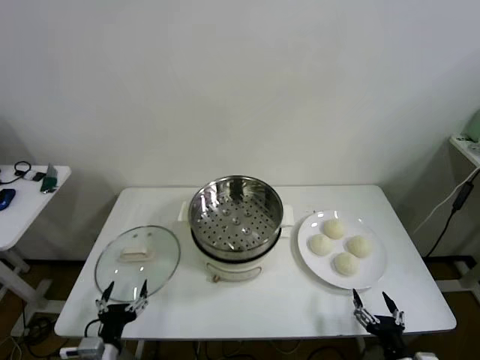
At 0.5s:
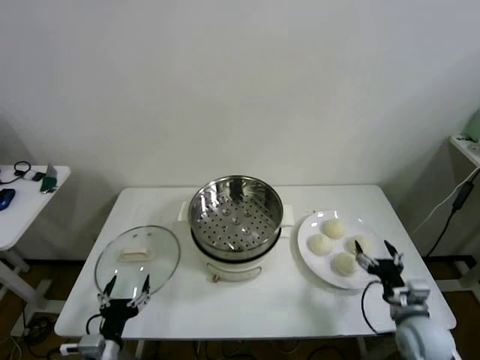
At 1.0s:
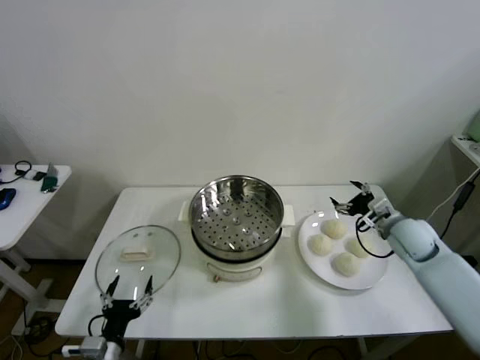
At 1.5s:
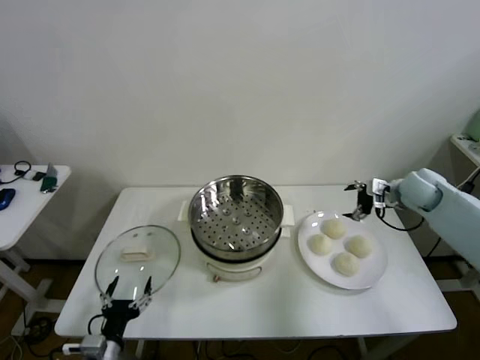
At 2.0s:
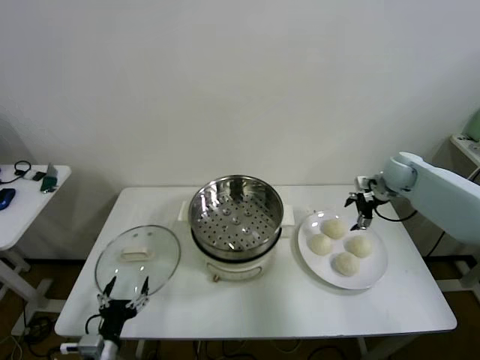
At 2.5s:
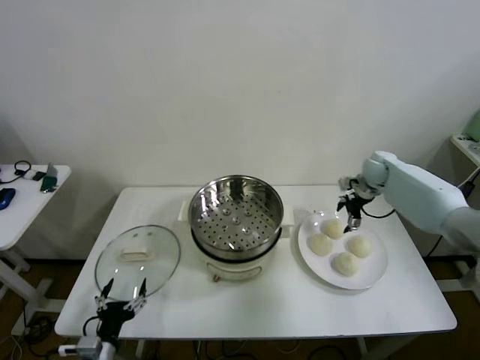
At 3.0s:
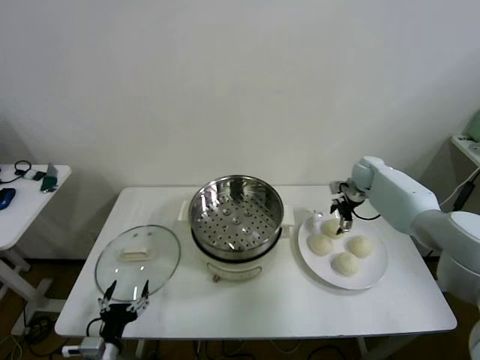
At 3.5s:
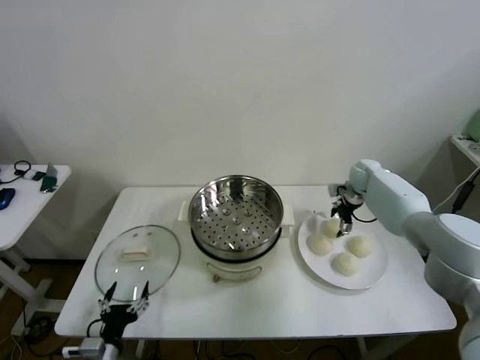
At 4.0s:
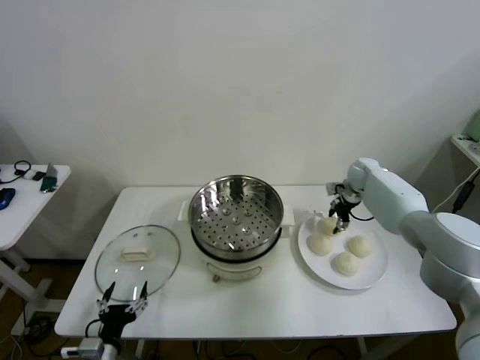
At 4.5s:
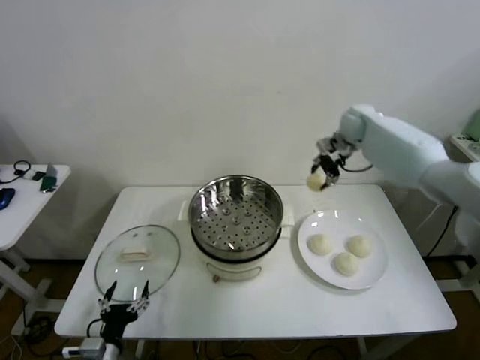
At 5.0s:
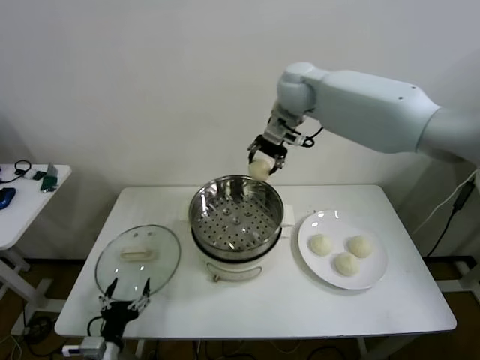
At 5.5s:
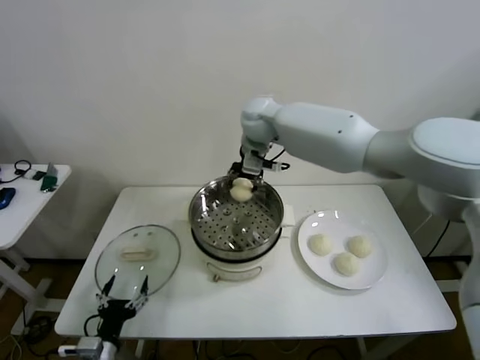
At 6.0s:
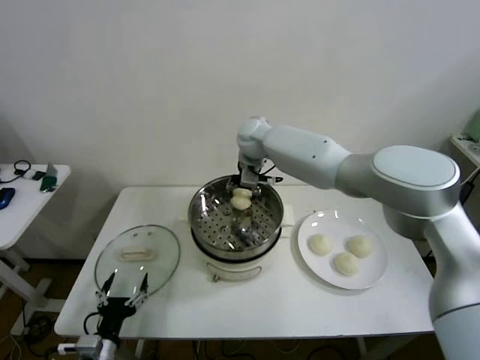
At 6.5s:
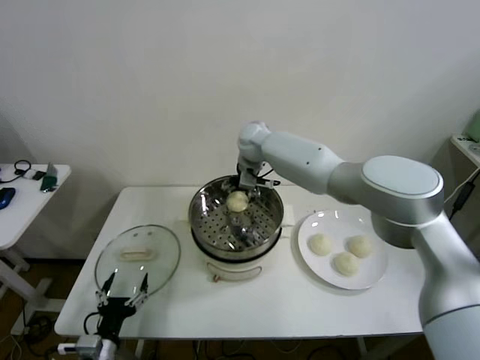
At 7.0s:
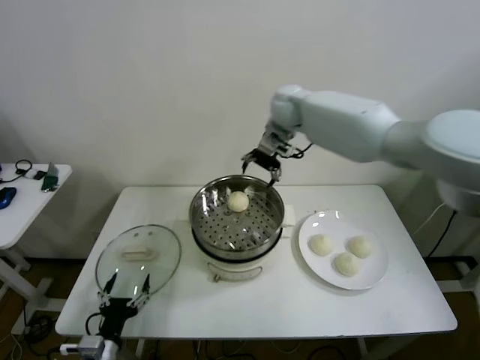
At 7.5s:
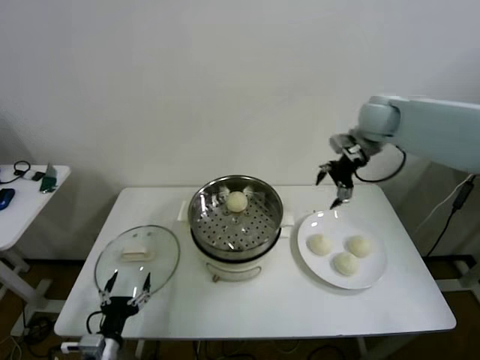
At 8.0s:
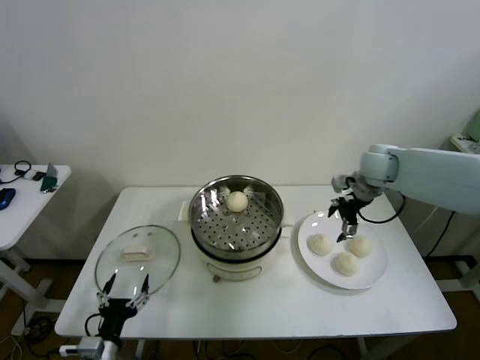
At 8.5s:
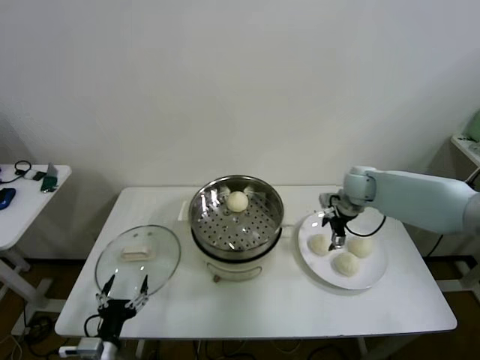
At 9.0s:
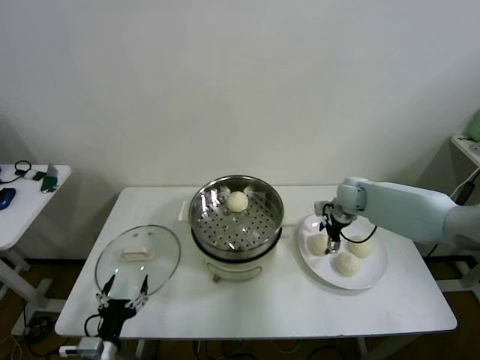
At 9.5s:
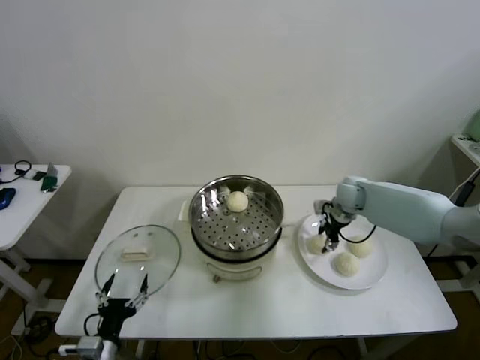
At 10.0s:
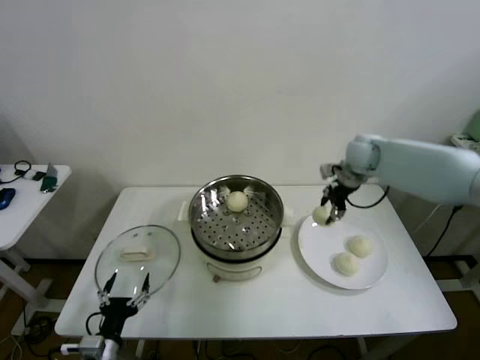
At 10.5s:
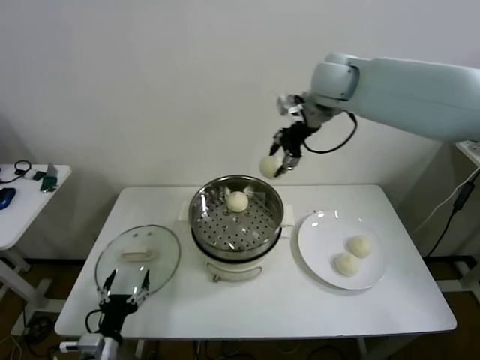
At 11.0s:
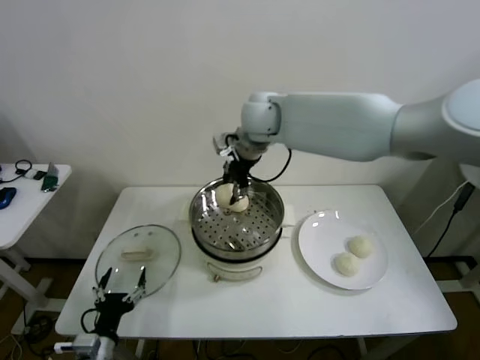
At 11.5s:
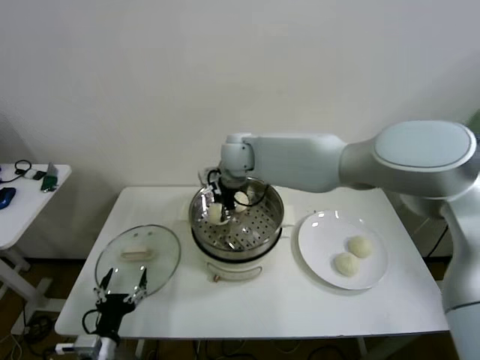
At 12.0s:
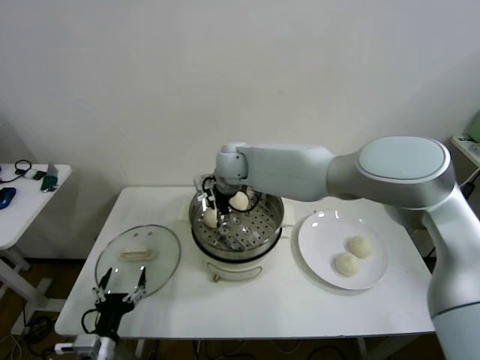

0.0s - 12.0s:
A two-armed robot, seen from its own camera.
Step, 0.0s - 3.5s: Grasp the baozi in the plate with right gripper.
Step, 4.0s - 6.5s: Place the baozi on the steamer with right gripper.
Step, 7.0s - 9.5s: Grasp the baozi in the plate with right gripper.
2.0s - 4.0s: The right gripper travels forward and downward by approximately 10 cm, and closes its fingers.
4.0s - 6.0s: The right gripper is displaced to the left by some 30 cm.
6.0s - 8.0s: The right gripper is displaced to the right by approximately 30 cm, and opens its fingers.
8.0s - 10.0s: The right gripper is displaced upward by roughly 5 cm, and closes.
10.0s - 12.0s: The right gripper is displaced to the left by approximately 30 cm, and opens its fingers.

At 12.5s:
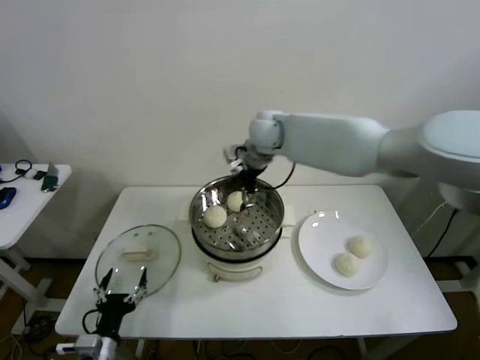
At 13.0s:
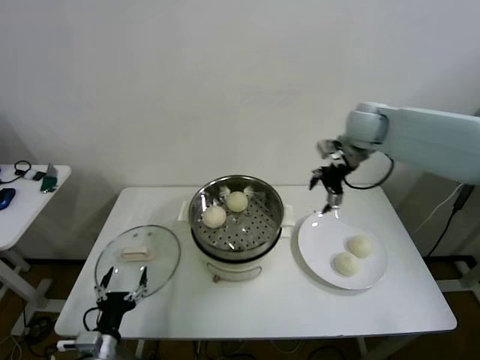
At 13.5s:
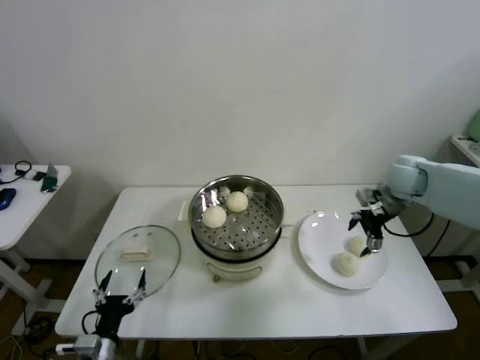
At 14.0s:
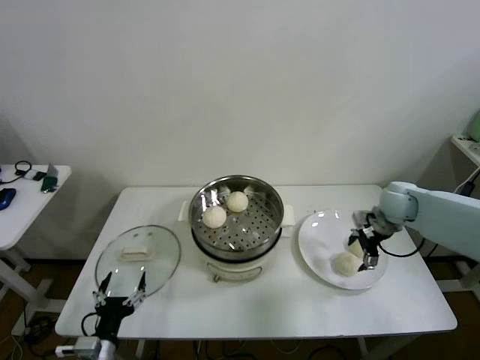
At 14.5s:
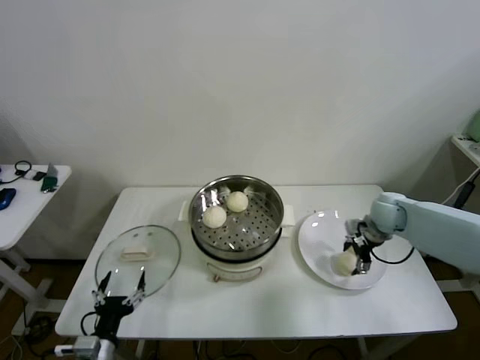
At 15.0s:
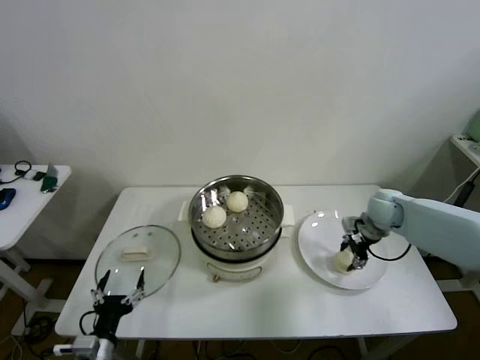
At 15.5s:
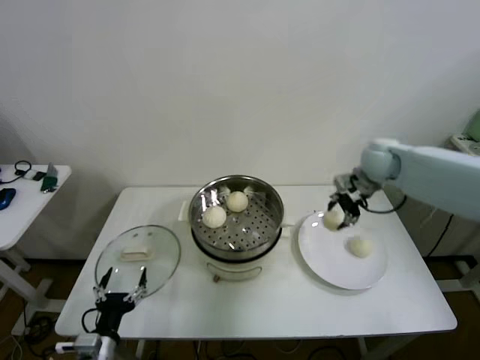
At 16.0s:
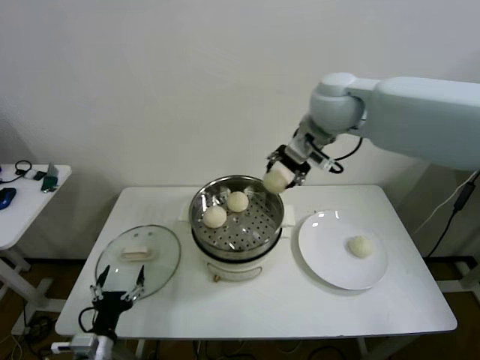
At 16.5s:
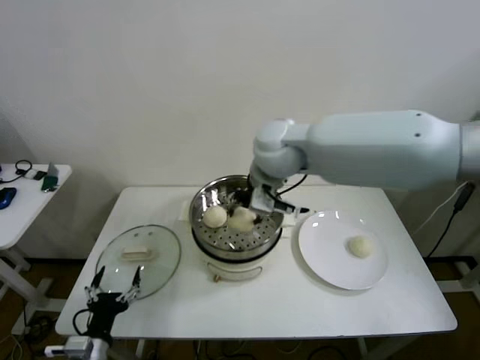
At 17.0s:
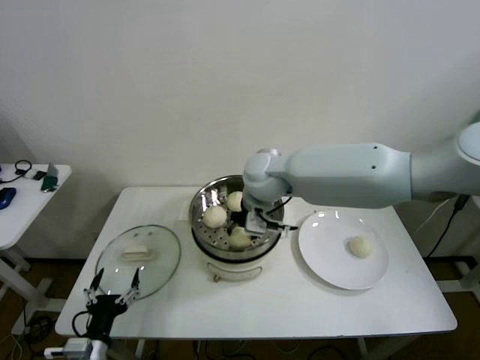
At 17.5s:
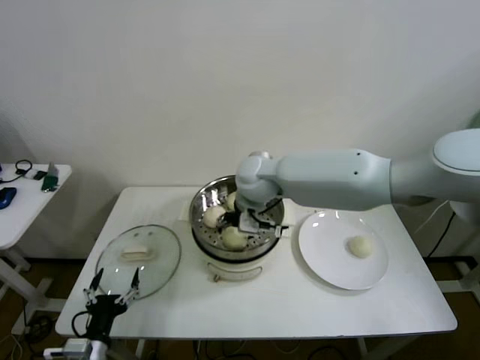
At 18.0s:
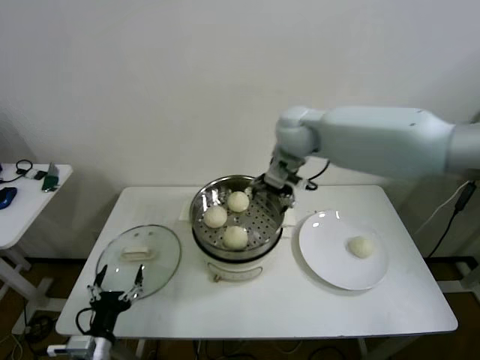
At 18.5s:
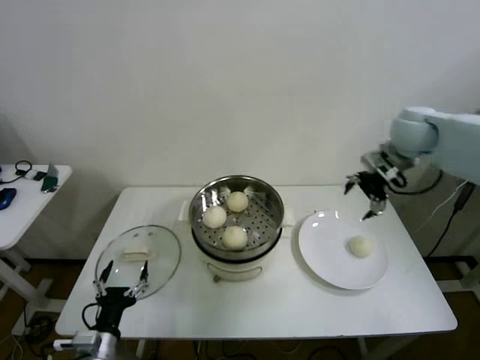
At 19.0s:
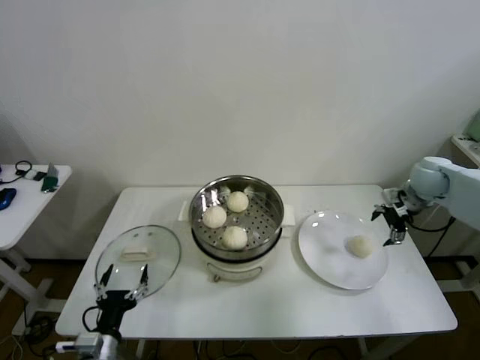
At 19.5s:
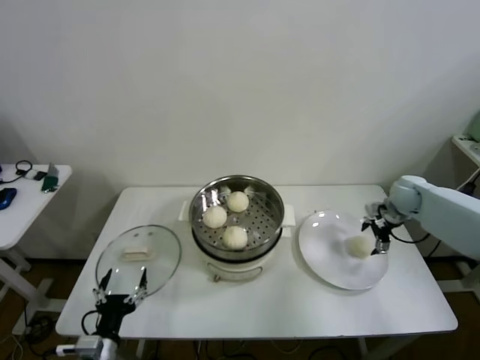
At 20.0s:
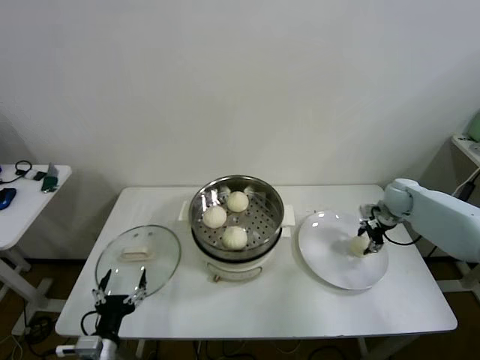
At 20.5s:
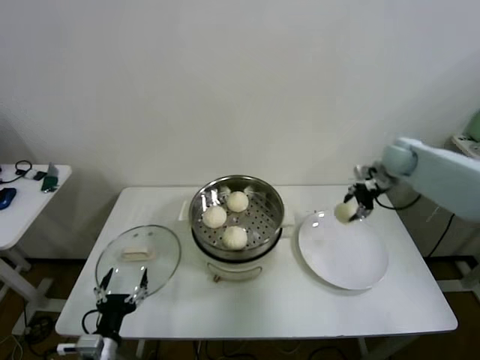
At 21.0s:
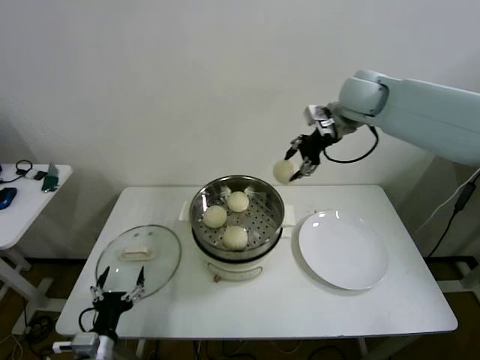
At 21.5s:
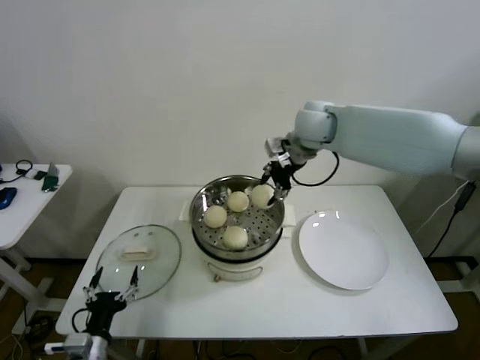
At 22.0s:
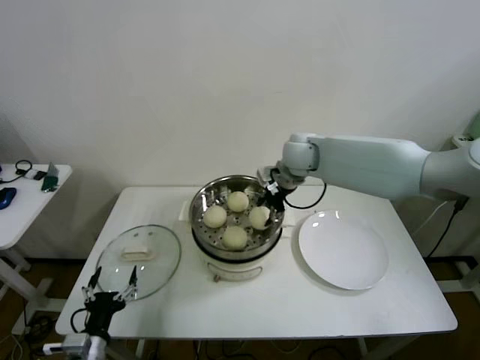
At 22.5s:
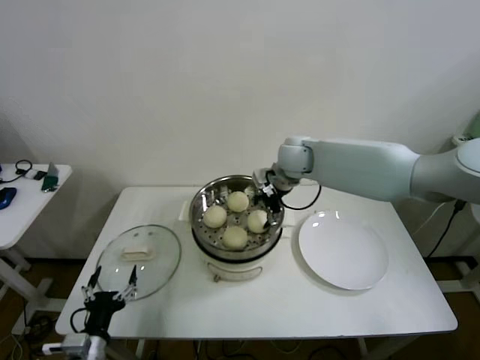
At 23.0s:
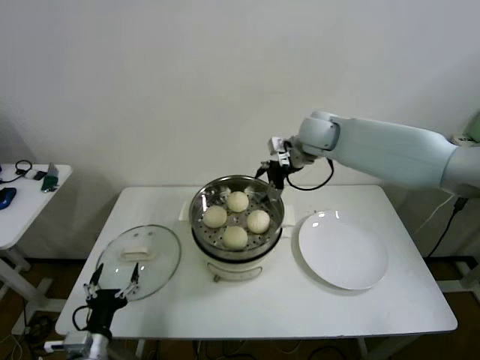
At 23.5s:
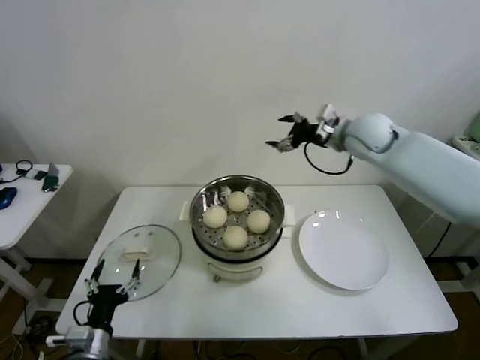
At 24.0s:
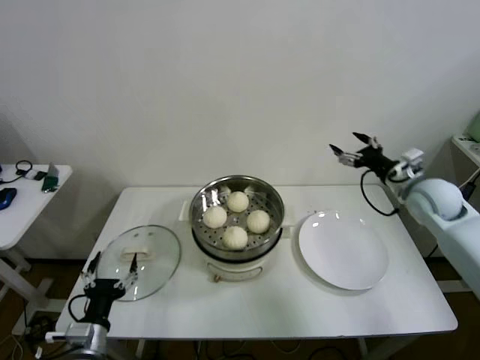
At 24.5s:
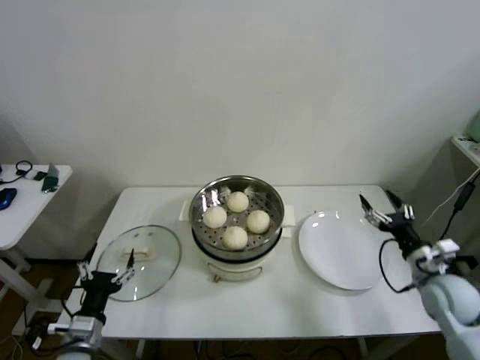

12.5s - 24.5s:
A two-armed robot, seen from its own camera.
Step, 12.5s - 14.5s: Grasp the baozi in the plate with right gripper.
Step, 15.0s - 17.5s: Place the baozi on the steamer with right gripper.
Step, 18.0s - 20.0s: Grasp the baozi in the plate with right gripper.
Step, 20.5s - 22.5s: Place the baozi on the steamer with right gripper.
12.5s - 14.5s: The right gripper is displaced to the right and downward by approximately 35 cm.
14.5s - 16.5s: The right gripper moves to the left and upward, roughly 40 cm, and closes.
16.5s - 18.5s: The right gripper moves to the right, approximately 30 cm, and opens.
18.5s - 20.5s: The right gripper travels downward and forward by approximately 10 cm, and closes.
20.5s - 22.5s: The right gripper shifts roughly 25 cm to the left, and opens its fingers.
22.5s - 24.5s: The right gripper shifts some 40 cm to the right, backward and downward.

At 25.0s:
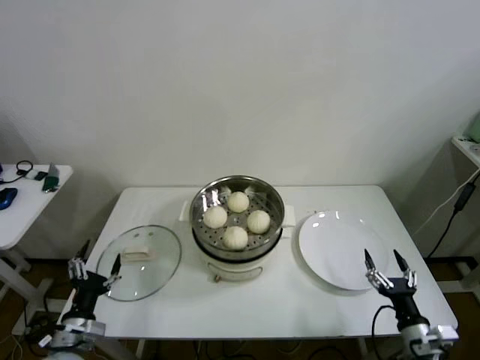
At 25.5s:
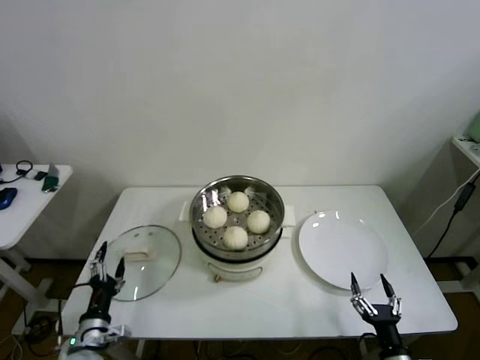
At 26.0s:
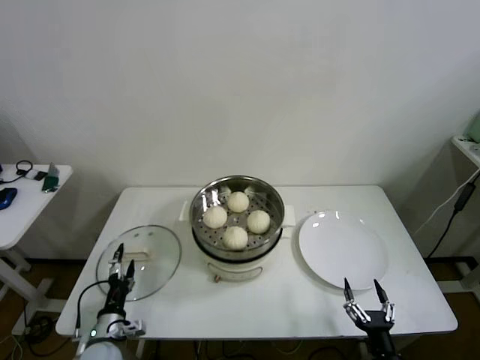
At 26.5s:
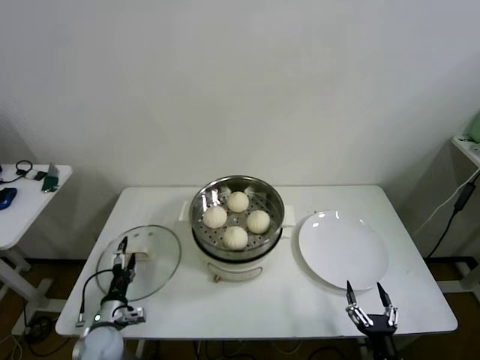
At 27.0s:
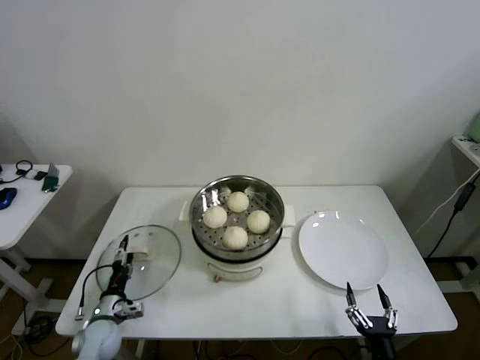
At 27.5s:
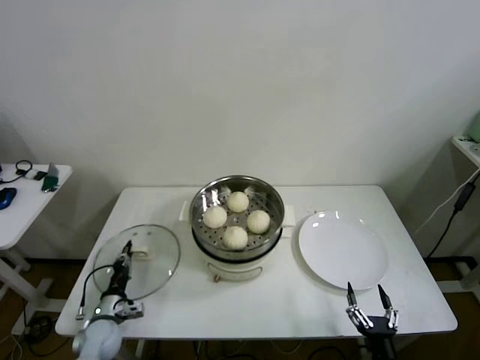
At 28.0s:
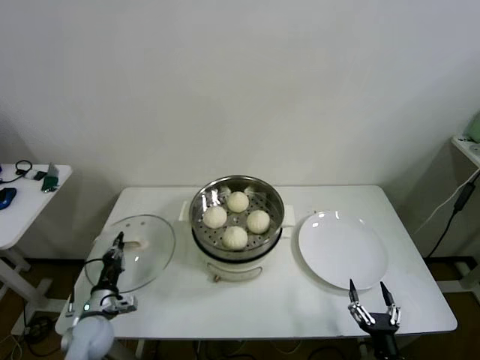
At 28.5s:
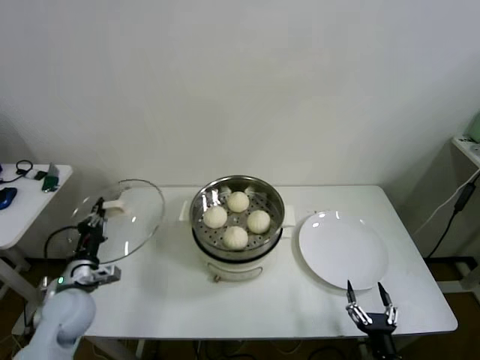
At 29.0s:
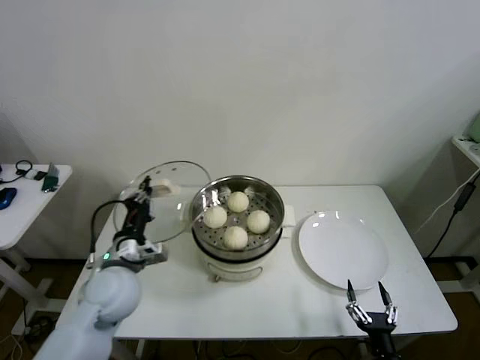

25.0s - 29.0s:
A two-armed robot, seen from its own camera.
Step, 25.0s - 27.5s: Grasp the pot lid with left gripper.
25.0s - 27.0s: The right gripper moves backward, to the left and downward, roughly 10 cm. The left gripper moves downward and forward, approximately 15 cm.
27.0s - 29.0s: The left gripper shifts some 25 cm upward and to the right, and closes its fingers.
